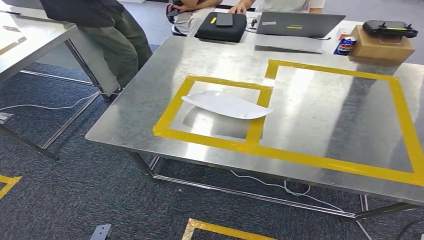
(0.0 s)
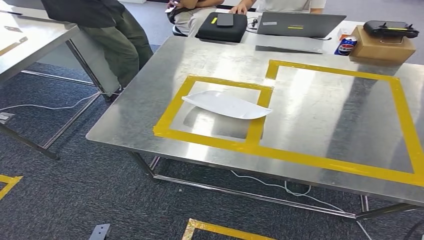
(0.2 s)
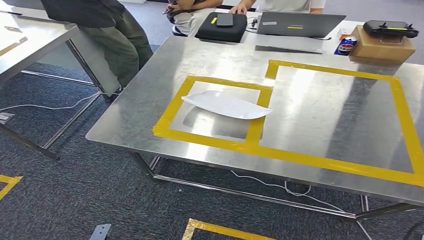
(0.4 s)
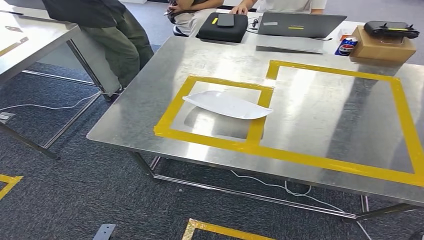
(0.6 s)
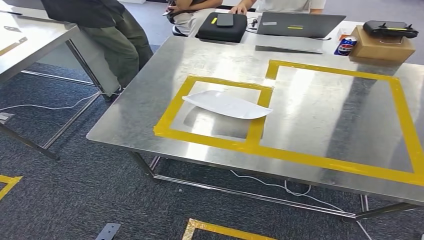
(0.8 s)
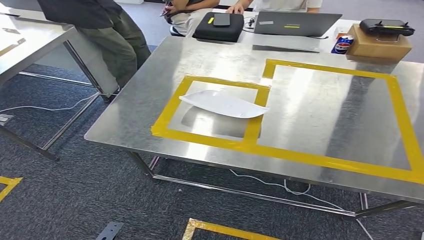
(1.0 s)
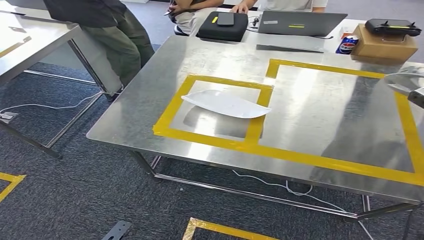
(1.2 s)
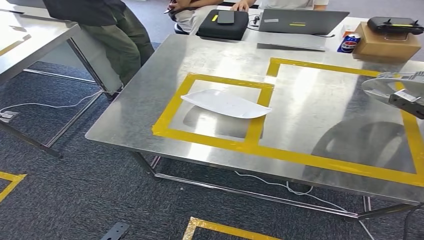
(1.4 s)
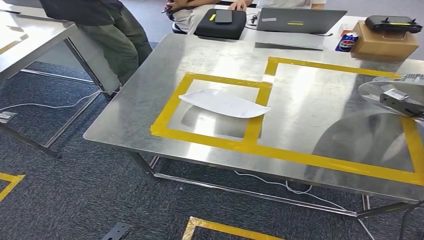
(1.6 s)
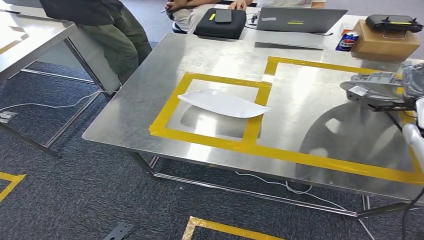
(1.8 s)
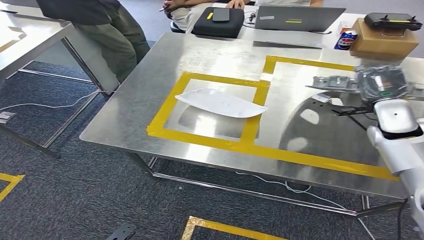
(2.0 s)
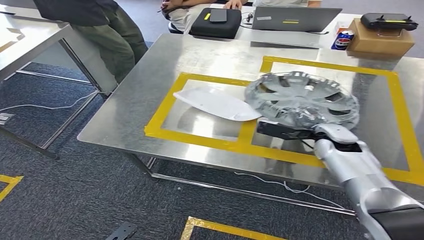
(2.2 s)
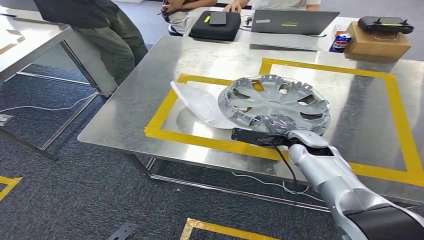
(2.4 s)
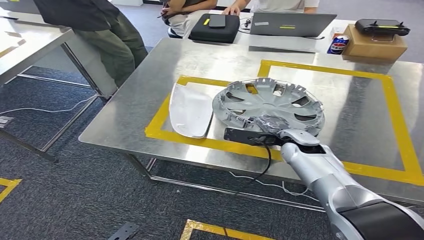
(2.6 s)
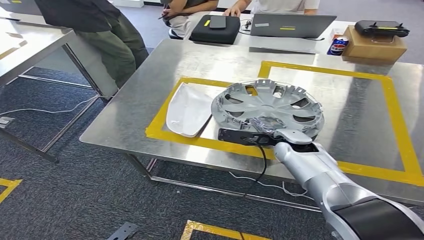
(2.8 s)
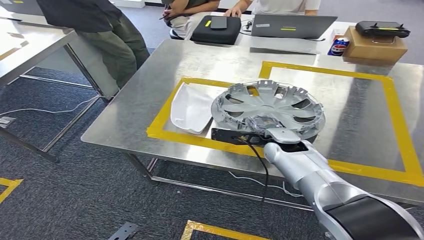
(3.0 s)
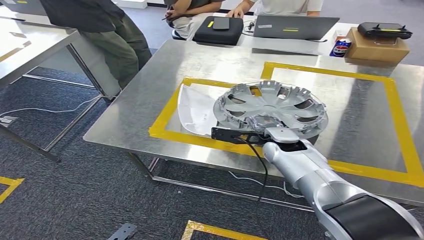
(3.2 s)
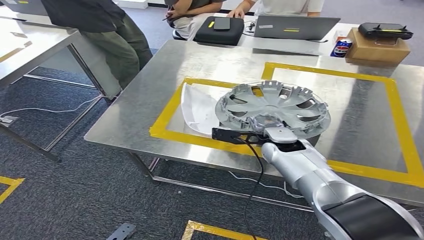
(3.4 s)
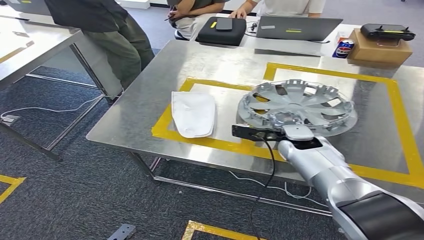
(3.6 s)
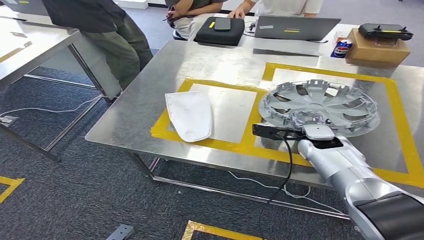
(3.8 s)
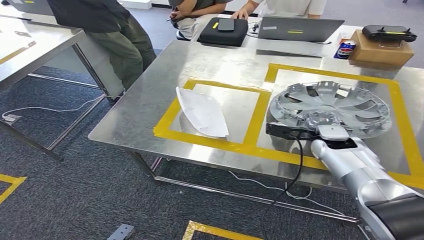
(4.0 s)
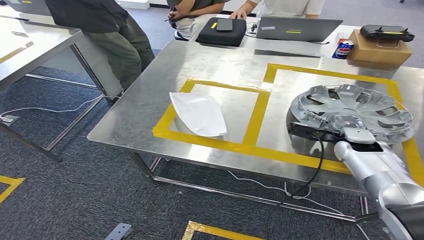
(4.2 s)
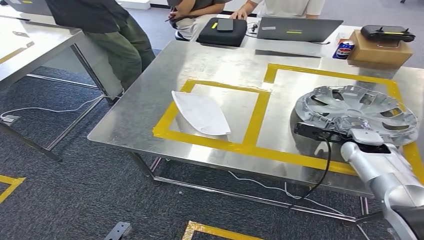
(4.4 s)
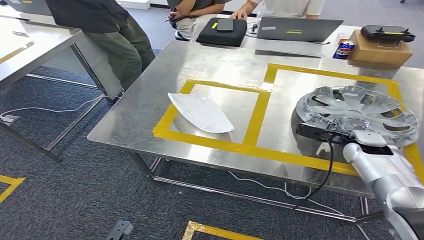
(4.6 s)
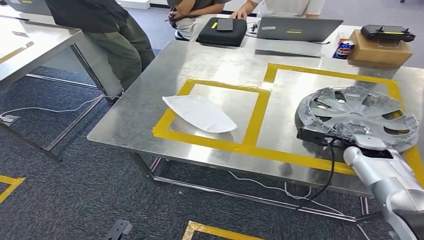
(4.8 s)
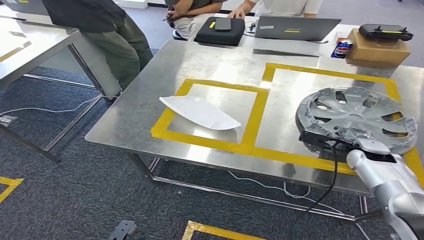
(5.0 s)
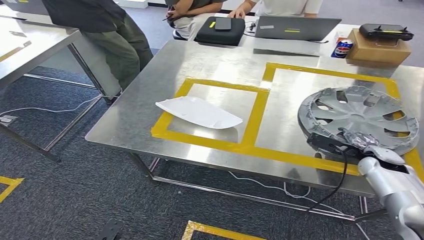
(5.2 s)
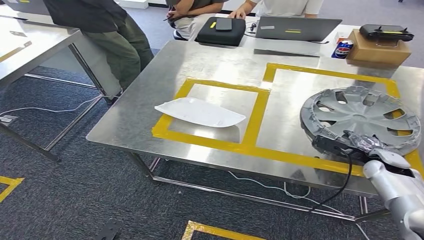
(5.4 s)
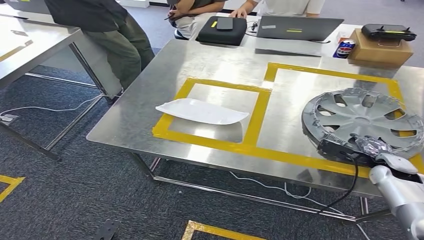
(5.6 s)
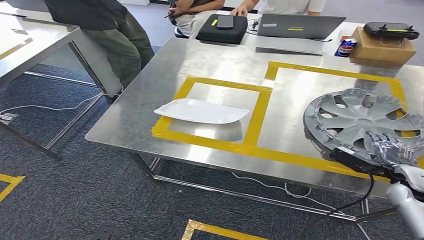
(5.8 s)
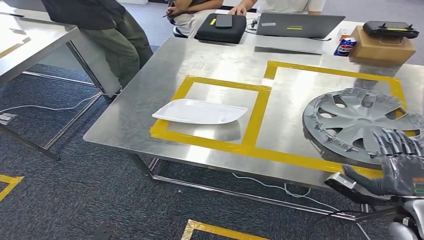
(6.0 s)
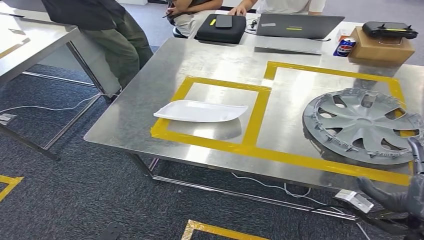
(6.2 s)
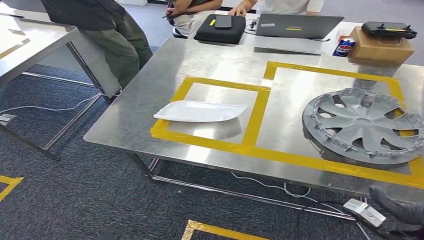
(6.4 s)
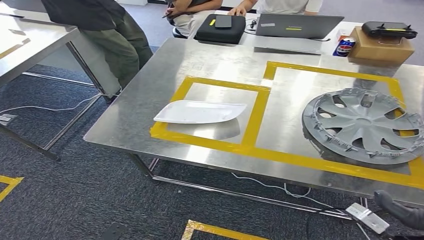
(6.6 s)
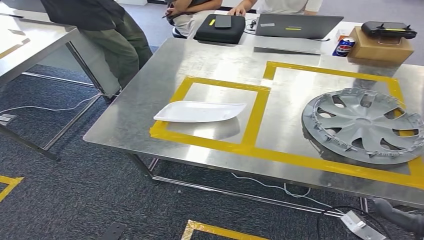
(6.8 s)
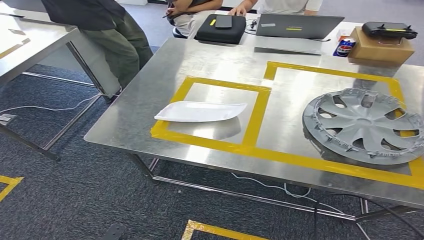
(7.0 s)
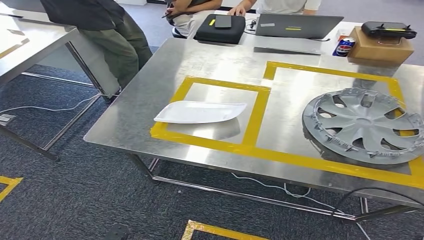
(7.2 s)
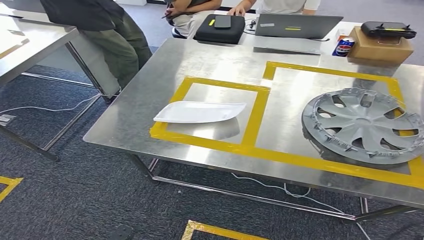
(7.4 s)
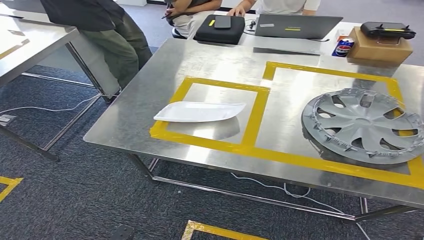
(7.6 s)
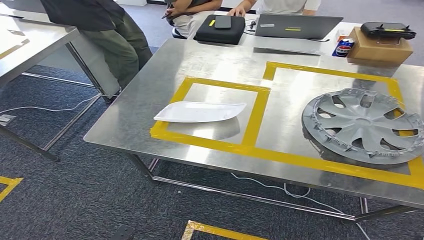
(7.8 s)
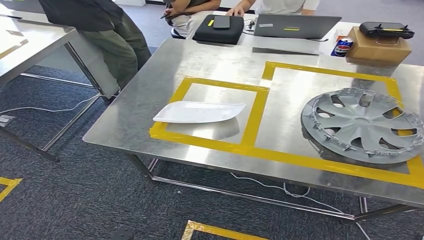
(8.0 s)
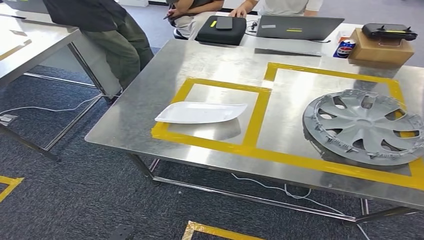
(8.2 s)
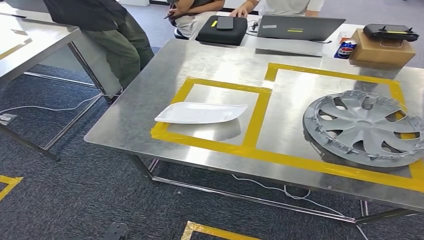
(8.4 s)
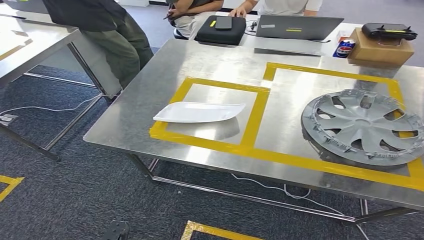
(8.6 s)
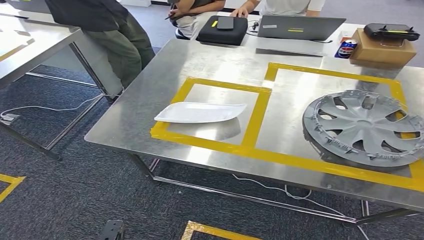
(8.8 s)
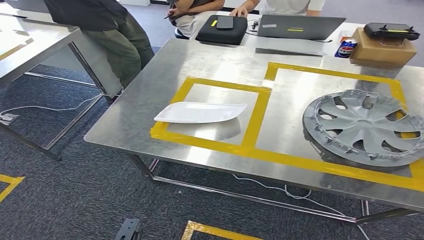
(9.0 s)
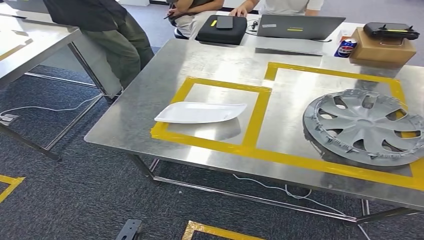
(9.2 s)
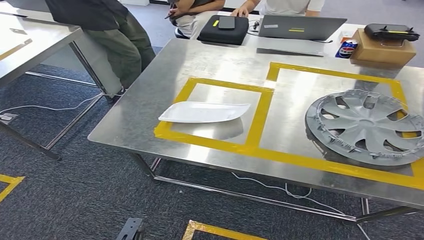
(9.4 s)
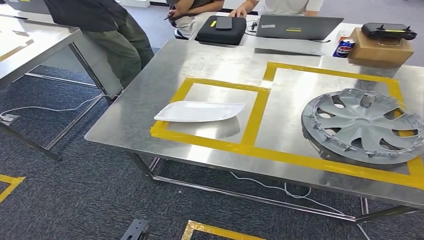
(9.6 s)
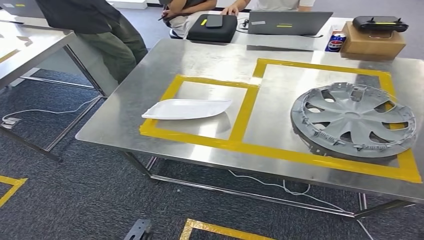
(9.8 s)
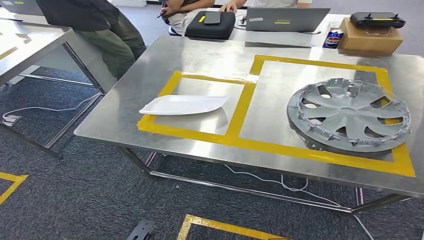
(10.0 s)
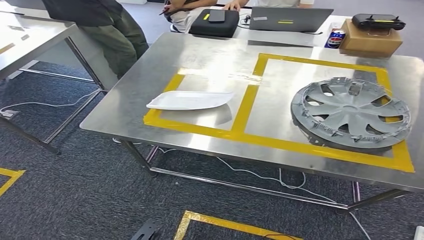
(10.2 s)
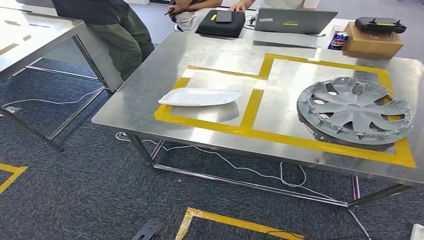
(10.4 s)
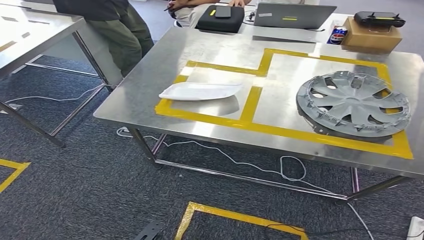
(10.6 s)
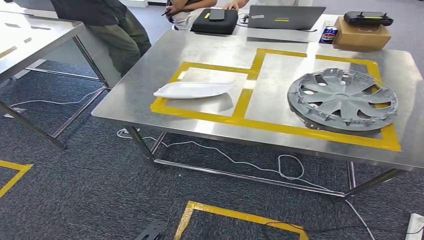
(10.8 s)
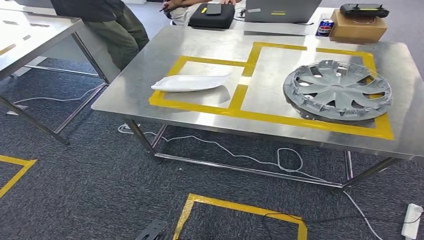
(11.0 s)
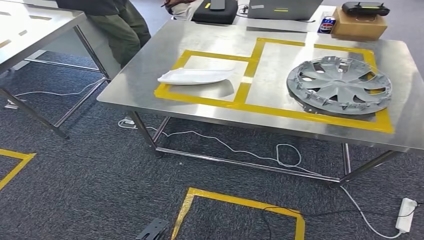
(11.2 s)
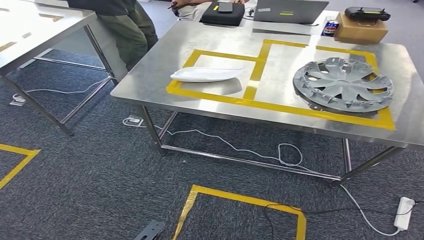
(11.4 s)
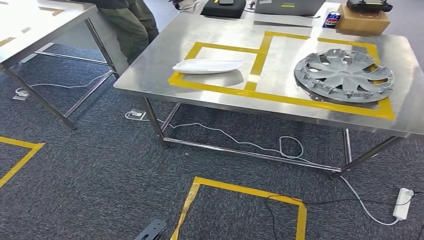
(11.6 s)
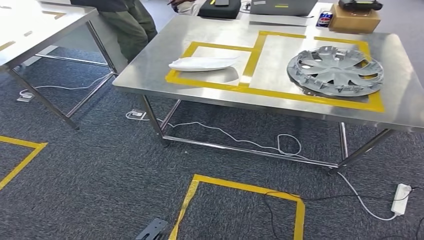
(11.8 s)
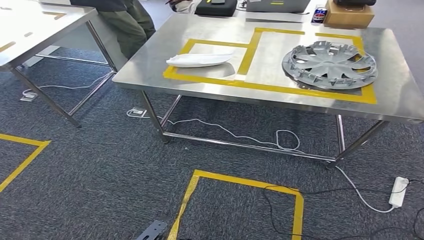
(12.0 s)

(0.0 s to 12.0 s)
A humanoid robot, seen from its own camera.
Step, 0.0 s - 7.4 s: Insert the small component into the corresponding slot on the workbench.
0.0 s - 1.6 s: The right hand goes about 35 cm forward.
6.0 s - 7.6 s: The right hand moves backward, approximately 25 cm.
7.6 s - 9.0 s: The right hand goes some 40 cm downward and to the left.

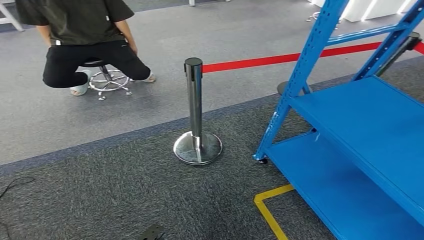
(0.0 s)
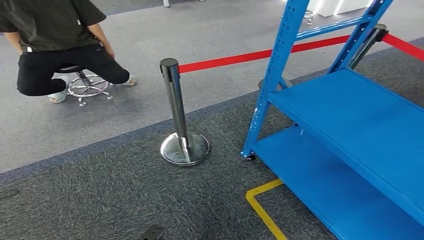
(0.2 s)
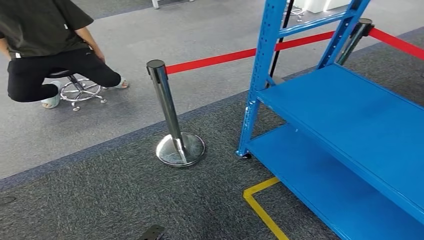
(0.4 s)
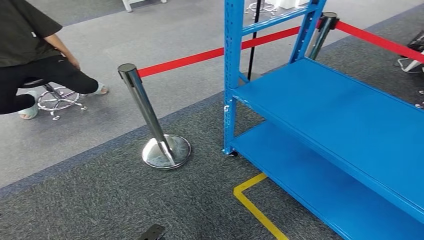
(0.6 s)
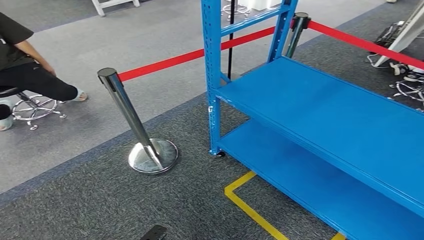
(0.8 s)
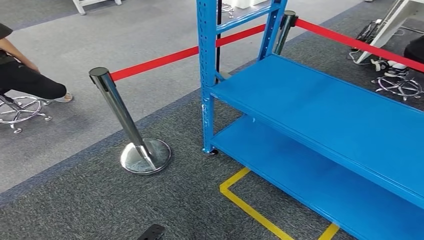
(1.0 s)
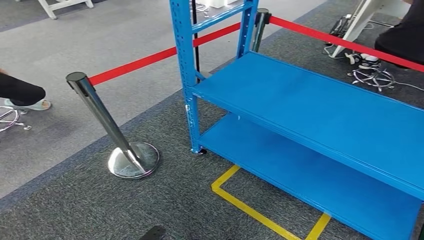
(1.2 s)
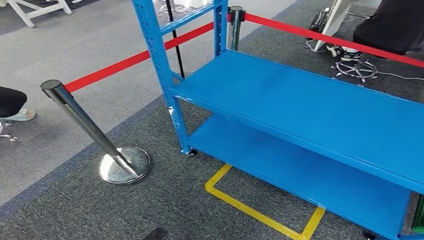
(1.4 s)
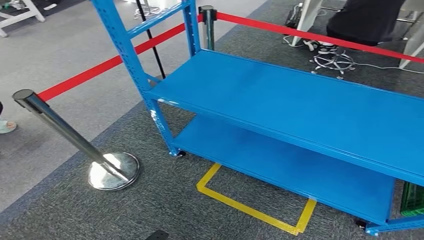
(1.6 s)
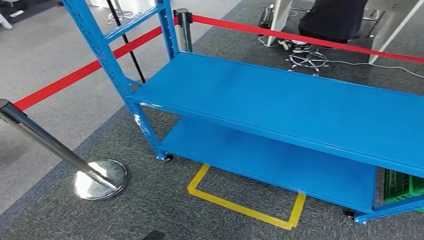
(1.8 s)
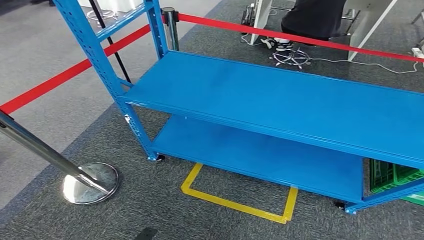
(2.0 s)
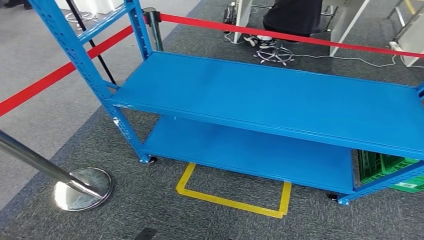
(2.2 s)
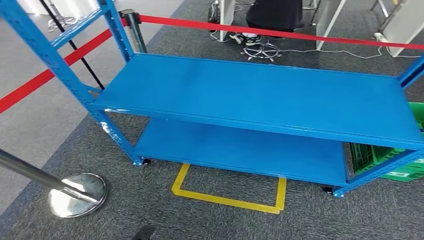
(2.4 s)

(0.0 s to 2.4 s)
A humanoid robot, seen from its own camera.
Step, 0.0 s - 2.4 s: Return to the initial position at the workbench.
